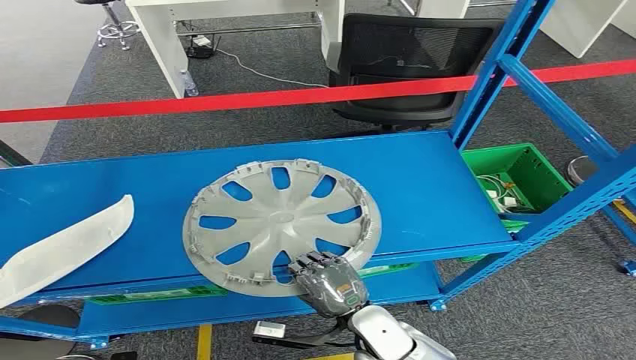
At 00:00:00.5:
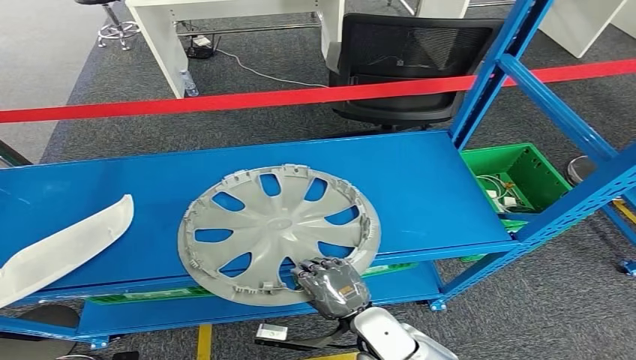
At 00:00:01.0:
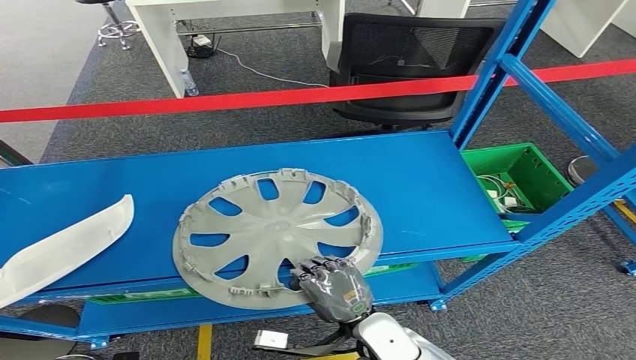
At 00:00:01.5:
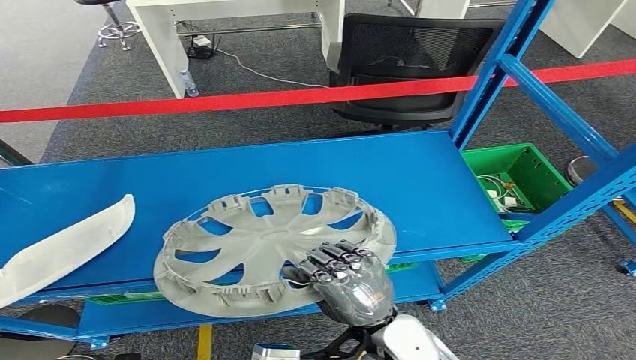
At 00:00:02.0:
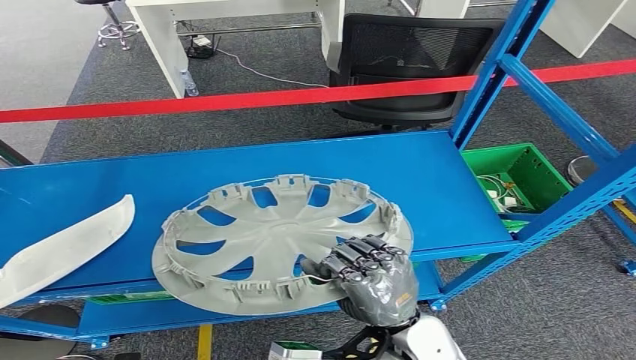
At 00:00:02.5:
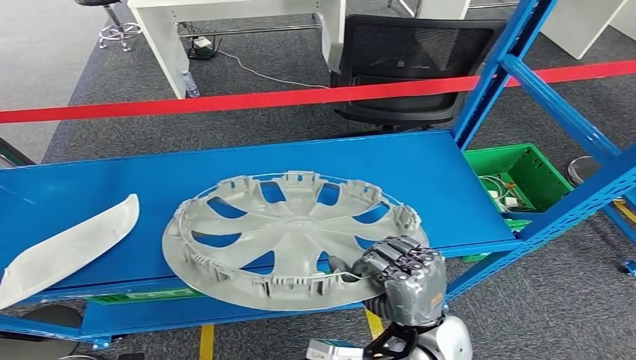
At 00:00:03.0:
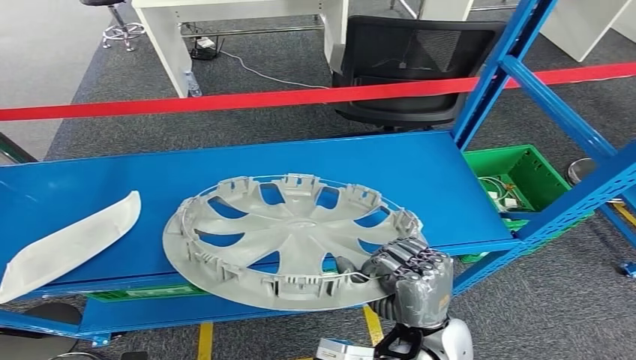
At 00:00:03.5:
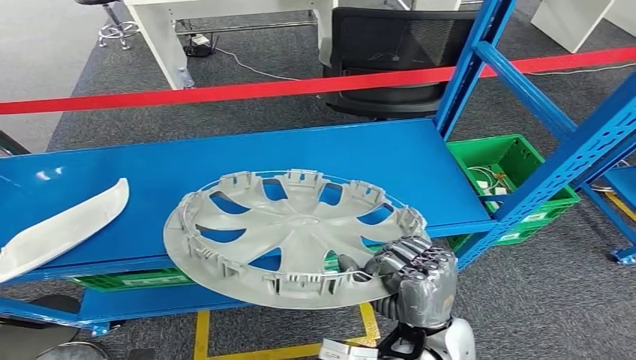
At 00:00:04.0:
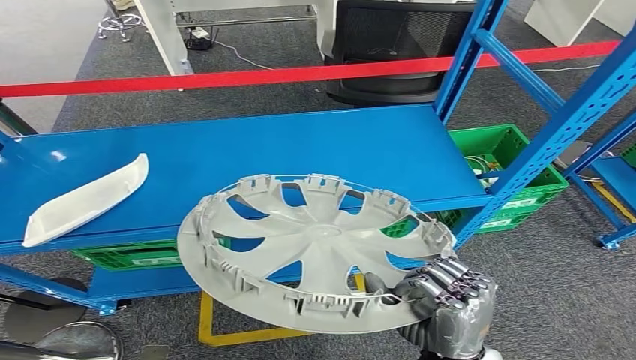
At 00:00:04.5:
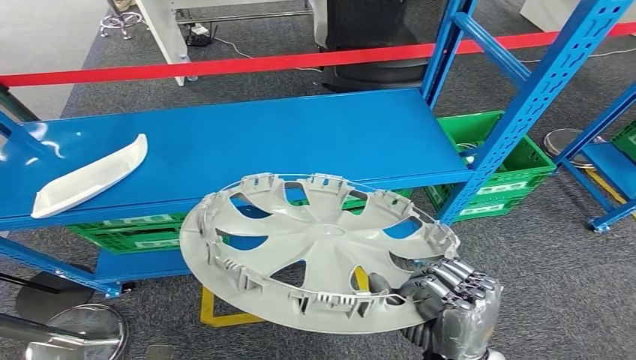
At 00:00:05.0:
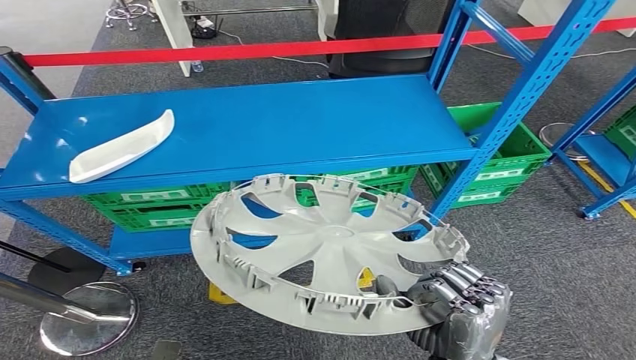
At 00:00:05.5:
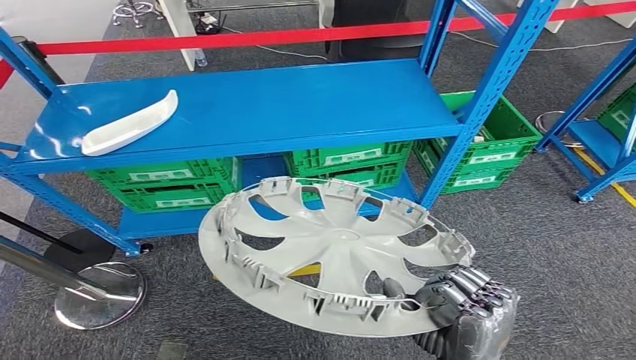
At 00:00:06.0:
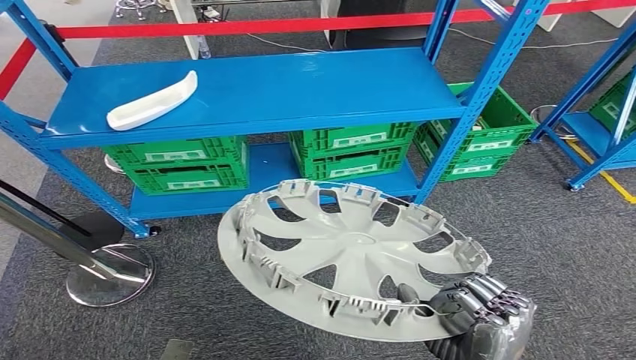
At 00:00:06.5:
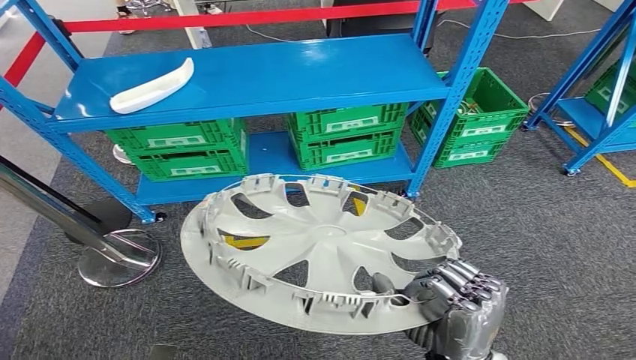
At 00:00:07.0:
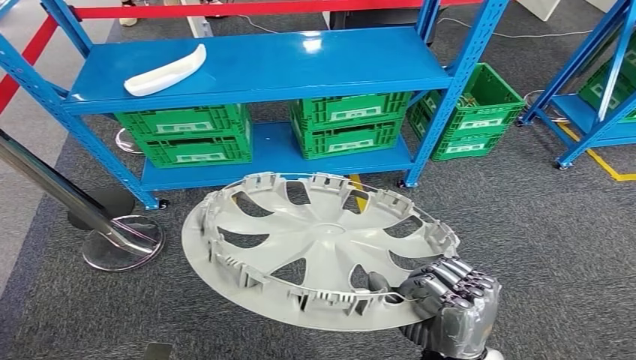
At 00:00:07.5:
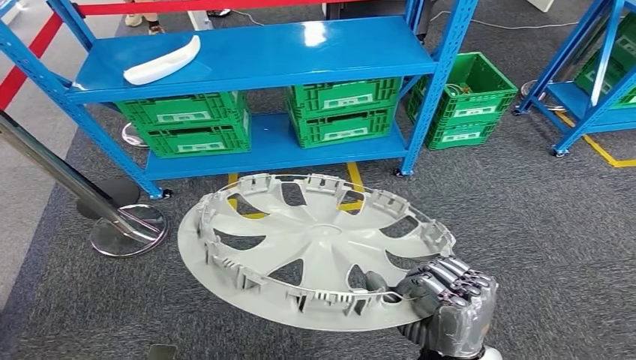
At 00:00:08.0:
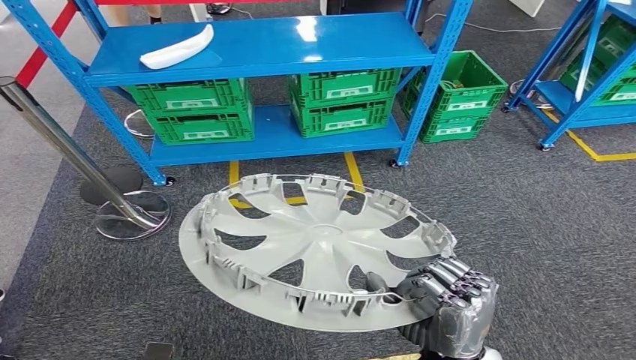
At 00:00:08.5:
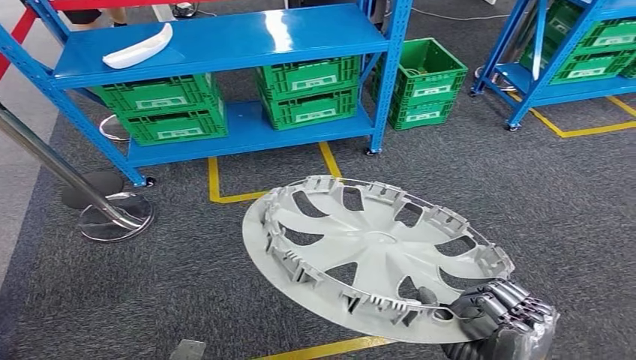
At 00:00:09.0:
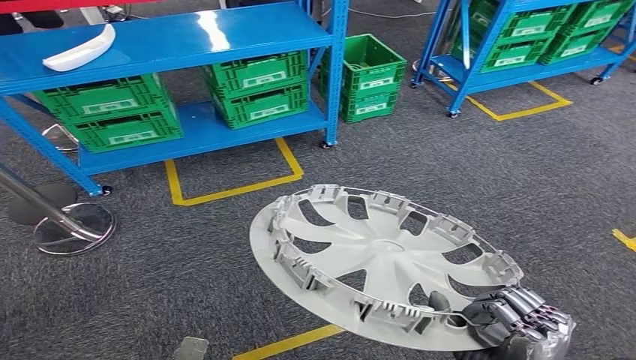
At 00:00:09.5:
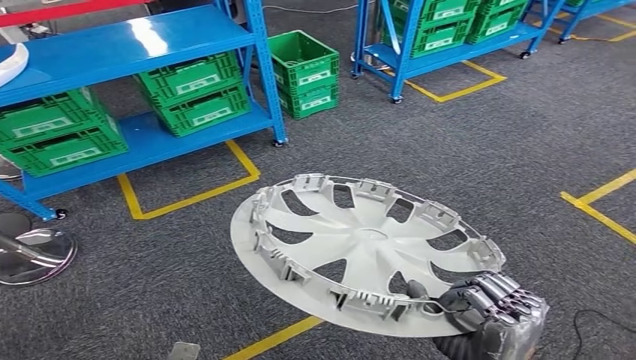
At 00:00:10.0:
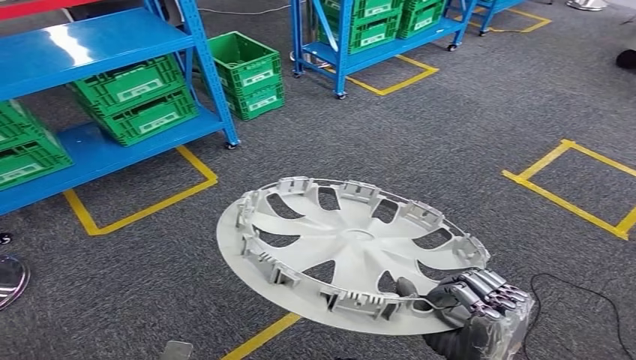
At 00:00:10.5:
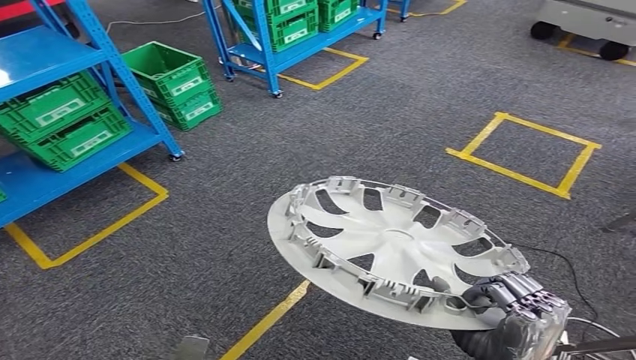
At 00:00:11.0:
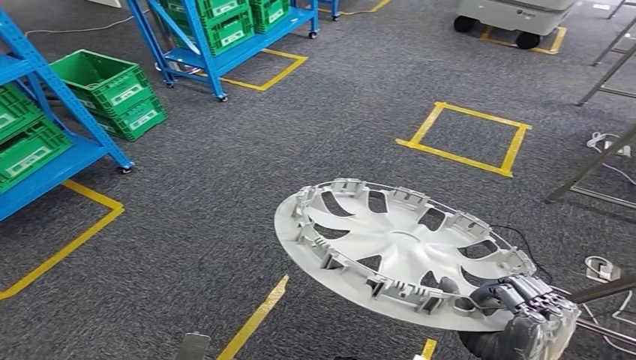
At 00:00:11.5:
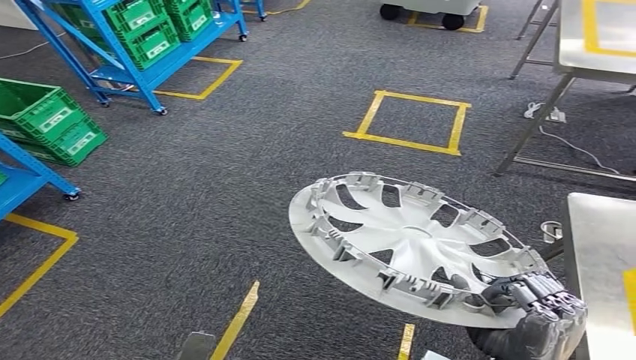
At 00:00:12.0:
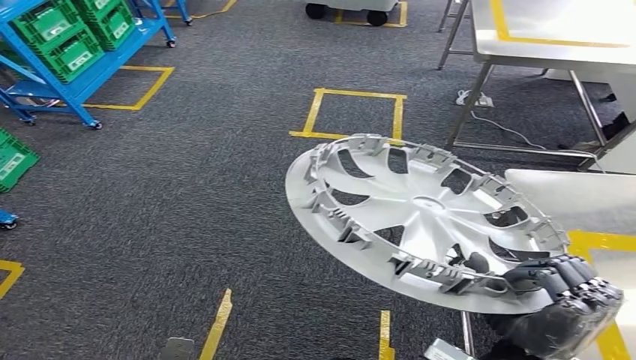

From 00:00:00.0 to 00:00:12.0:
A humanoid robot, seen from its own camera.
Step, from 00:00:00.0 to 00:00:04.0: Pick up the small component from the shelf.

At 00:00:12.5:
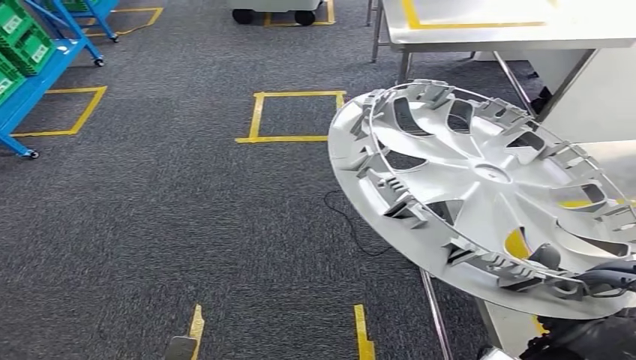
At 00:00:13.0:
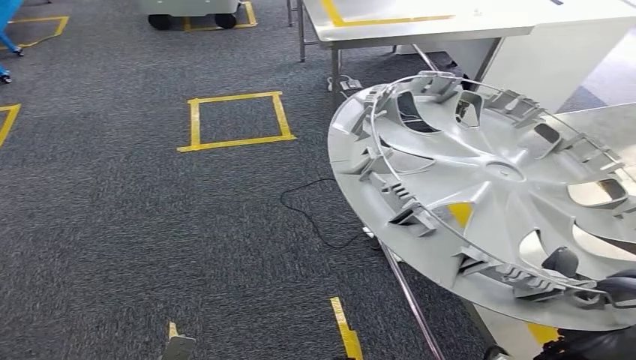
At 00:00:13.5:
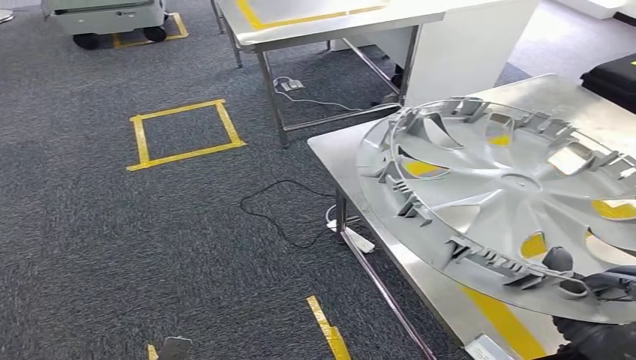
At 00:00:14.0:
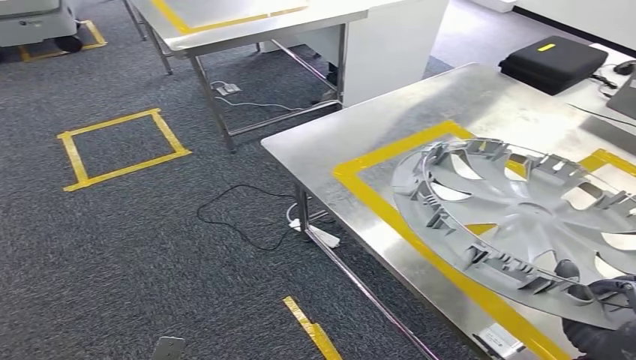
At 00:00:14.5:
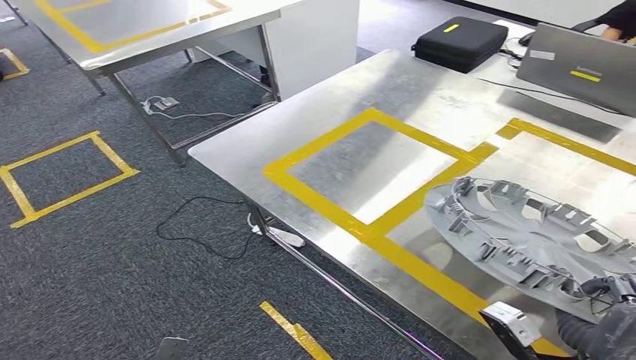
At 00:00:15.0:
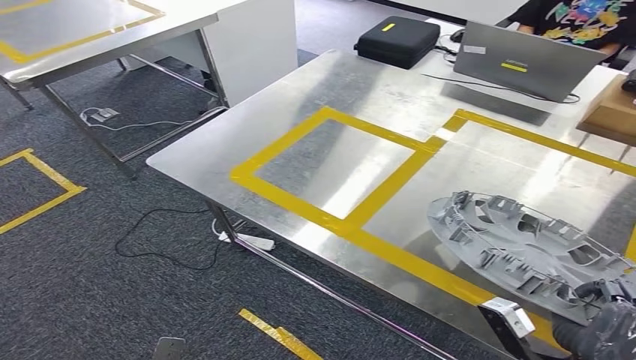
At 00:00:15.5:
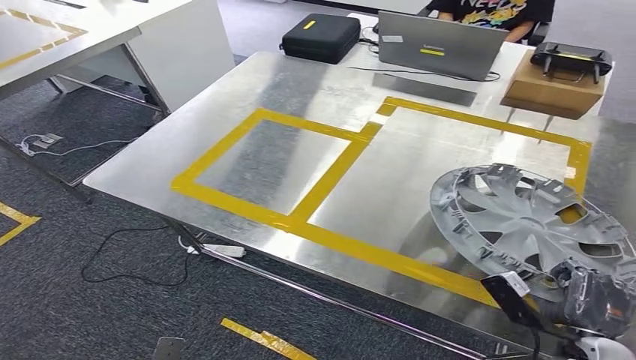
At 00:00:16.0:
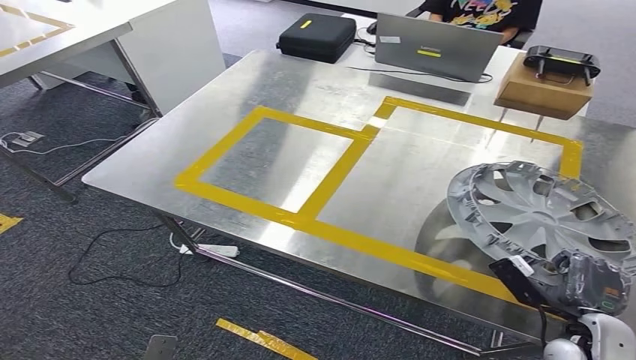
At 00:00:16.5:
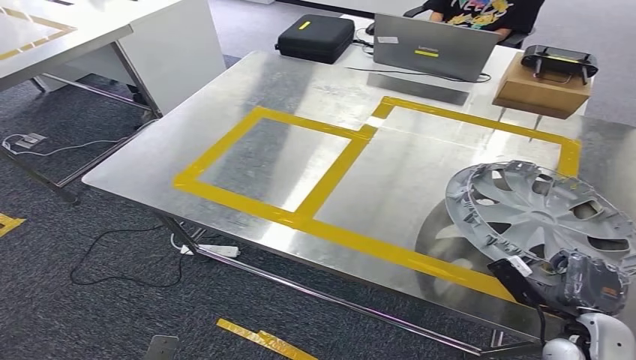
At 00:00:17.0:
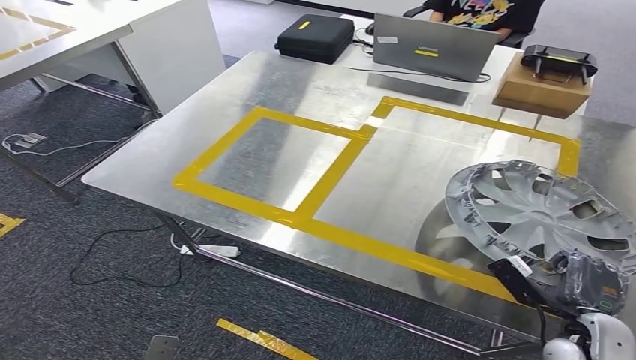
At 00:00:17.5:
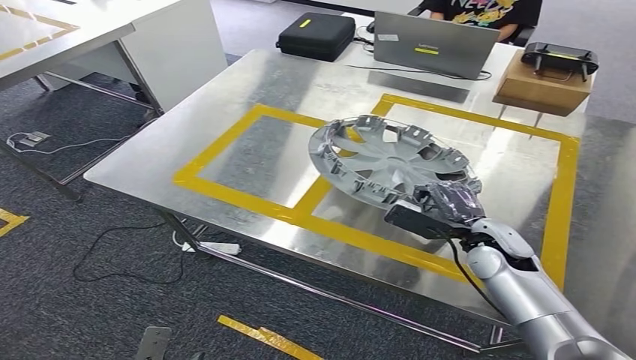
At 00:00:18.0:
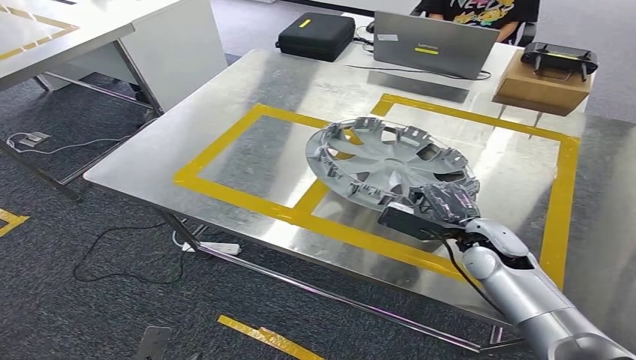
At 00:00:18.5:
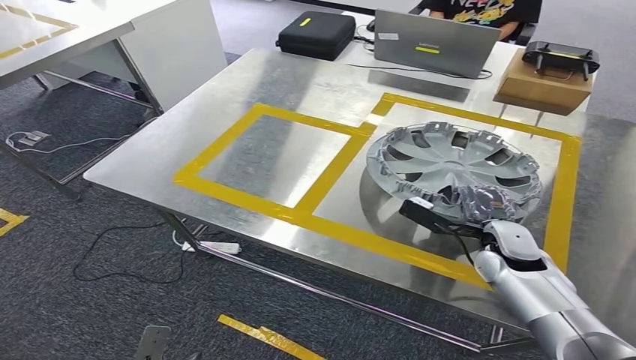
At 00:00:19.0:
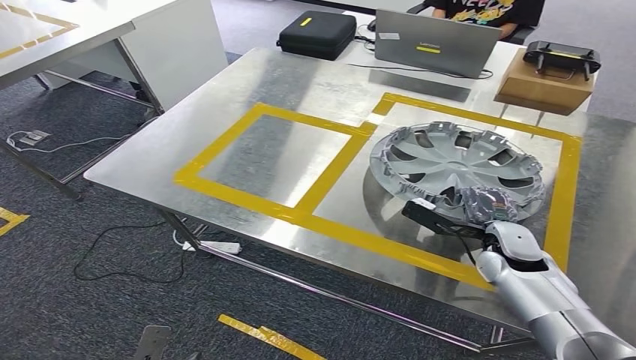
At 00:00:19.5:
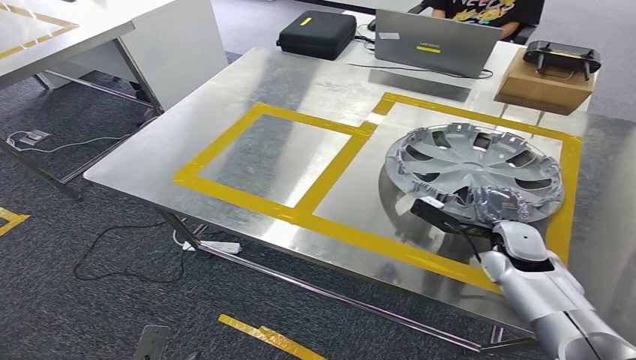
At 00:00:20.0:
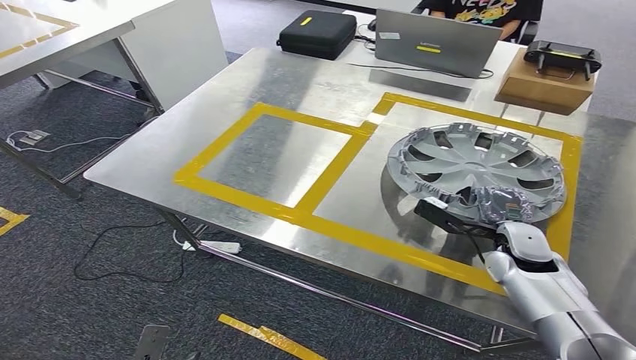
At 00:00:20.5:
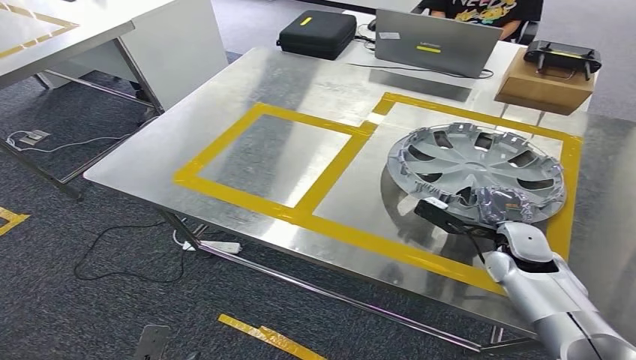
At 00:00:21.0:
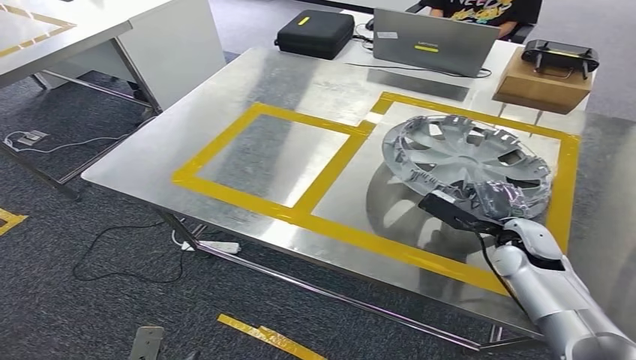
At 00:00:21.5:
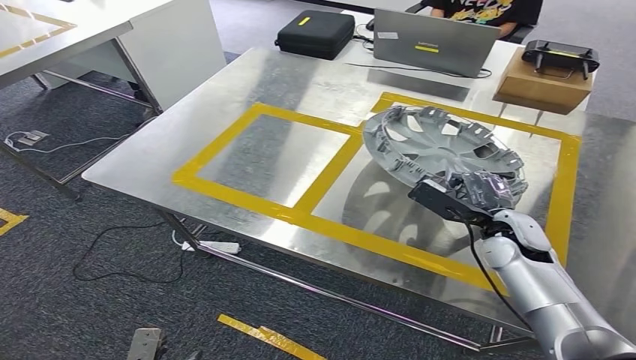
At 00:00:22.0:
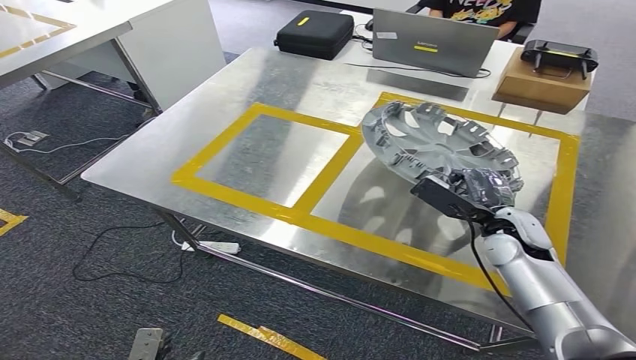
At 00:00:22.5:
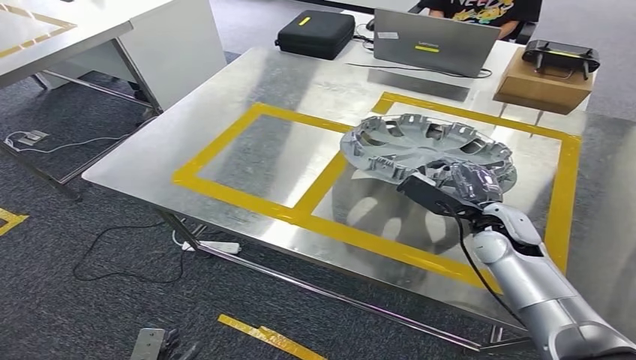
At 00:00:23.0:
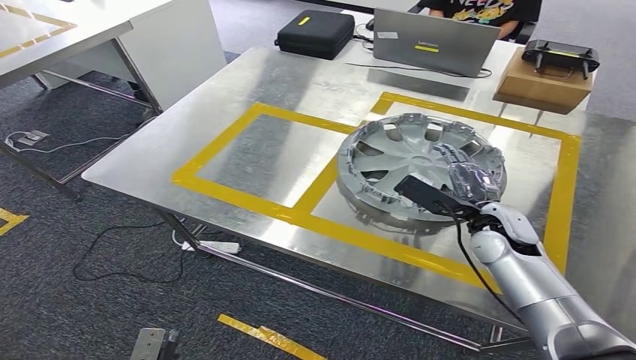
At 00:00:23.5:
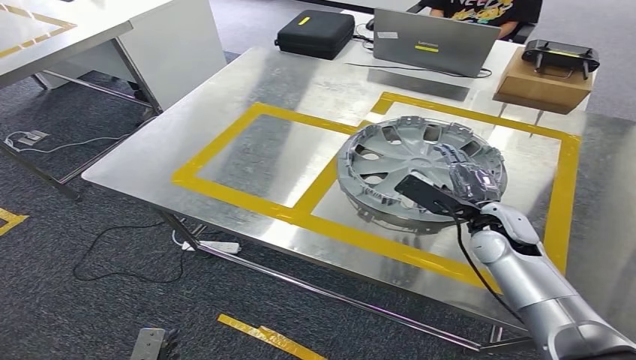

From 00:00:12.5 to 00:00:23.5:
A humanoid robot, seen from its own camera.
Step, from 00:00:12.5 to 00:00:16.0: Move the small component to the workbench.
From 00:00:21.5 to 00:00:23.5: The hands move only a little.
